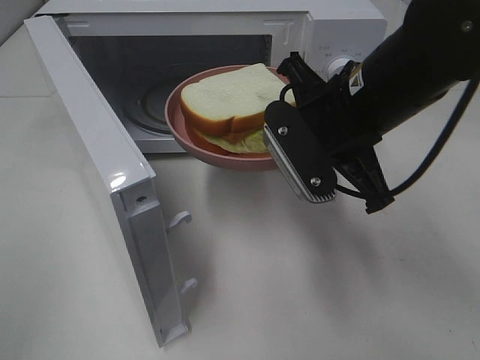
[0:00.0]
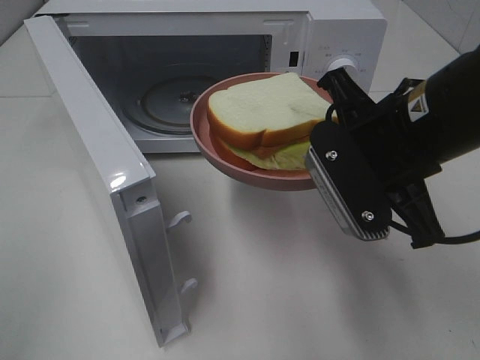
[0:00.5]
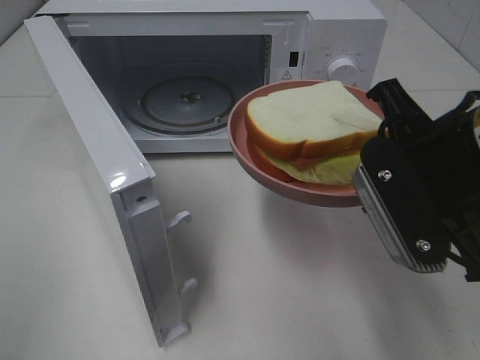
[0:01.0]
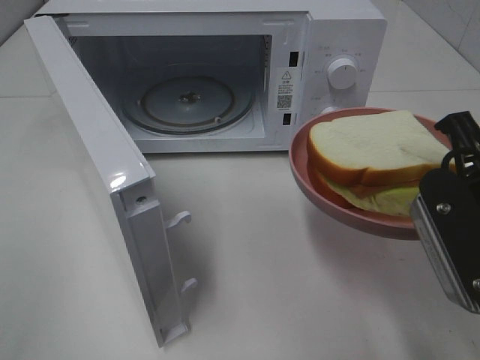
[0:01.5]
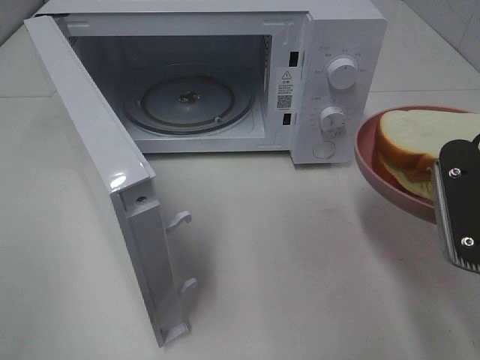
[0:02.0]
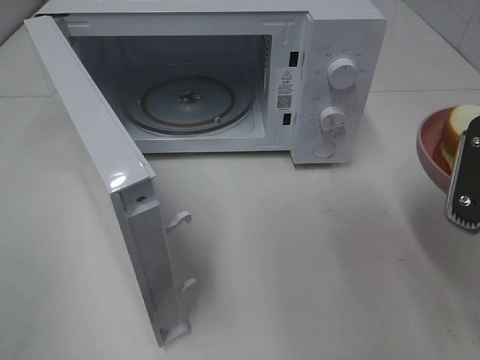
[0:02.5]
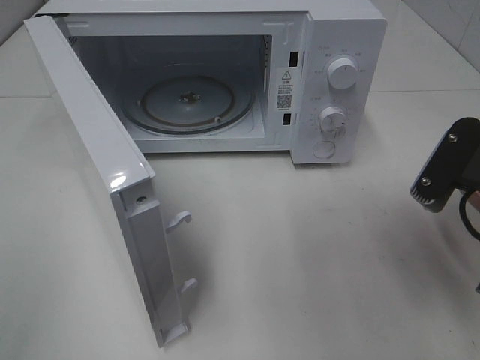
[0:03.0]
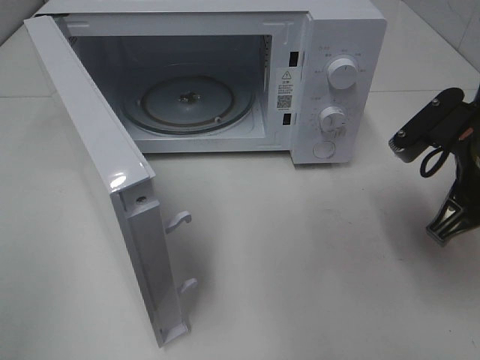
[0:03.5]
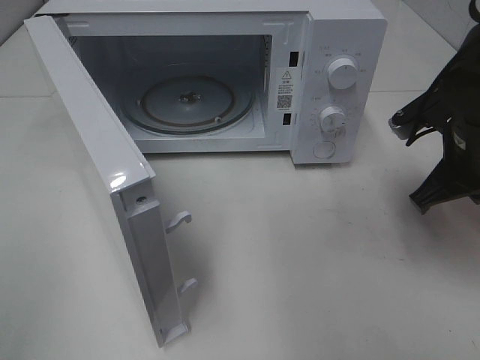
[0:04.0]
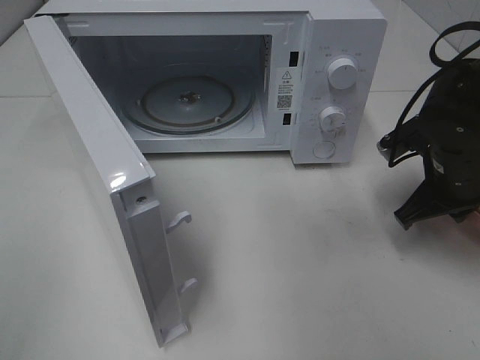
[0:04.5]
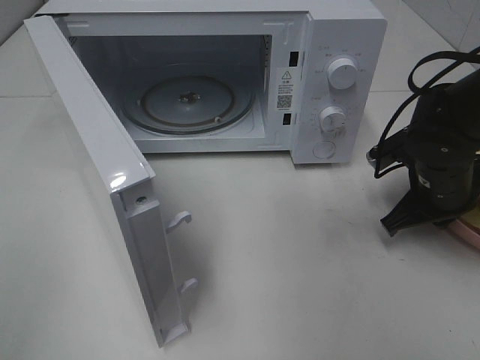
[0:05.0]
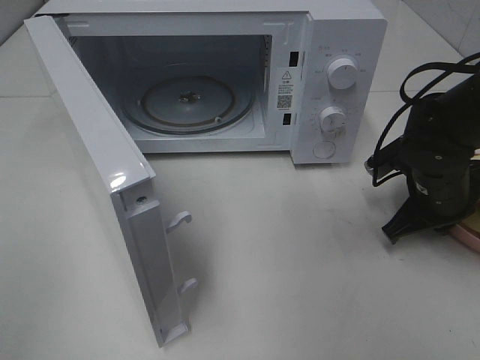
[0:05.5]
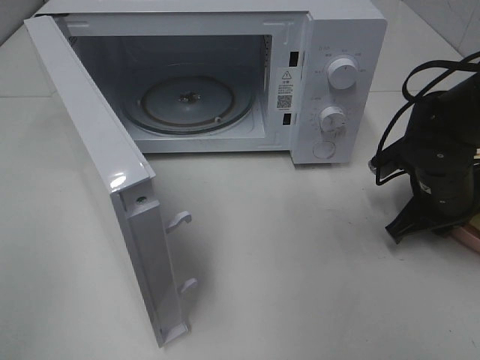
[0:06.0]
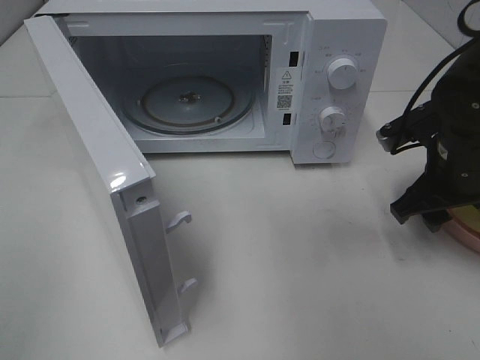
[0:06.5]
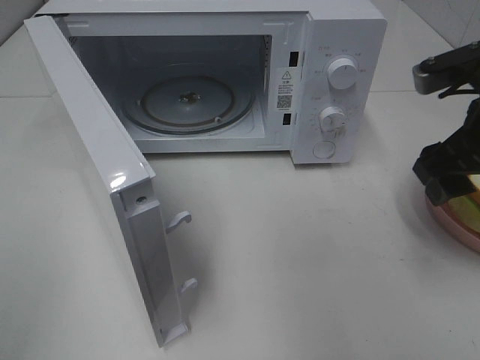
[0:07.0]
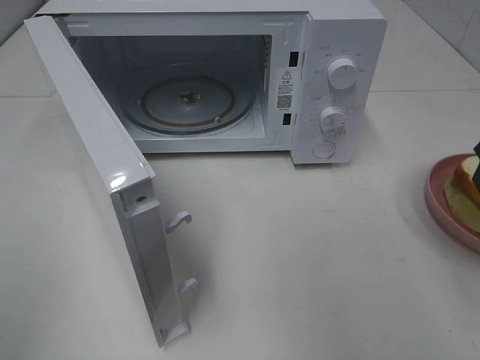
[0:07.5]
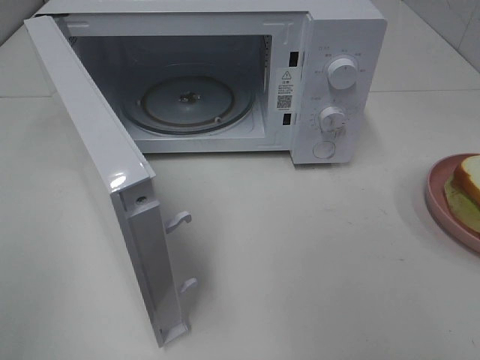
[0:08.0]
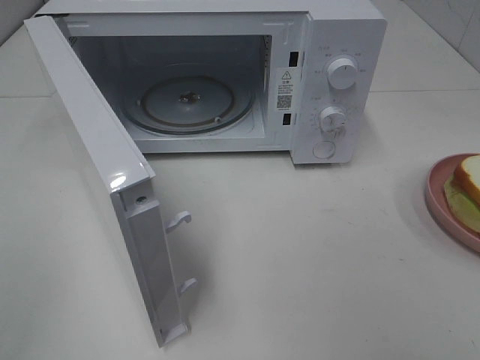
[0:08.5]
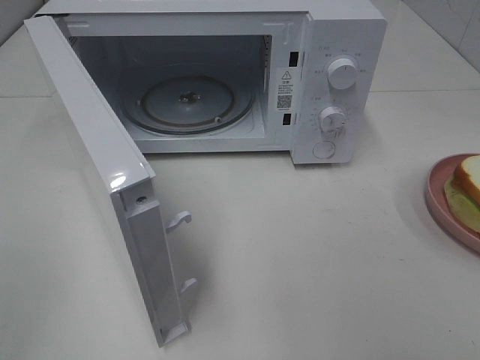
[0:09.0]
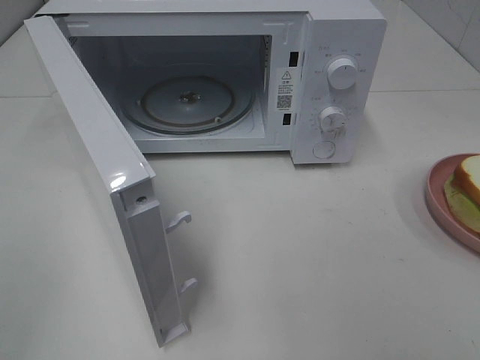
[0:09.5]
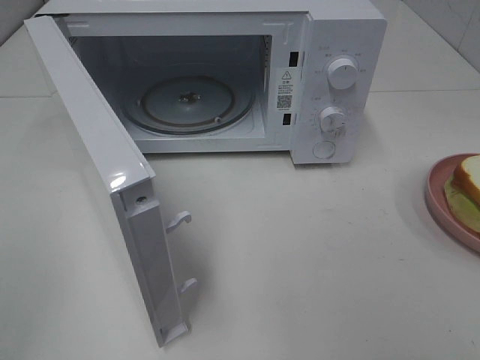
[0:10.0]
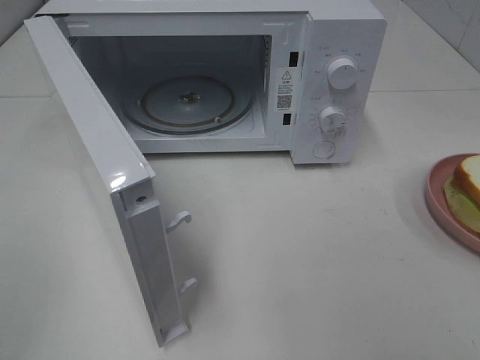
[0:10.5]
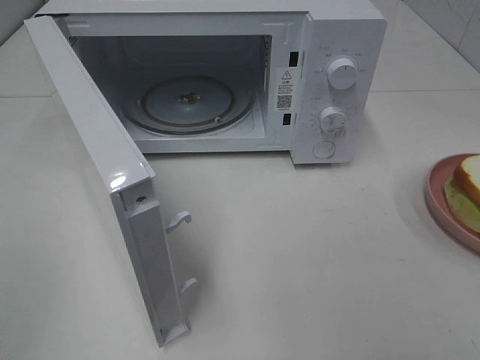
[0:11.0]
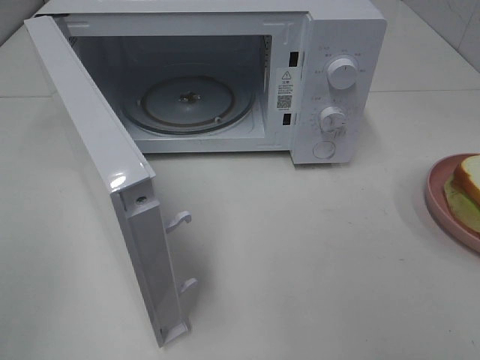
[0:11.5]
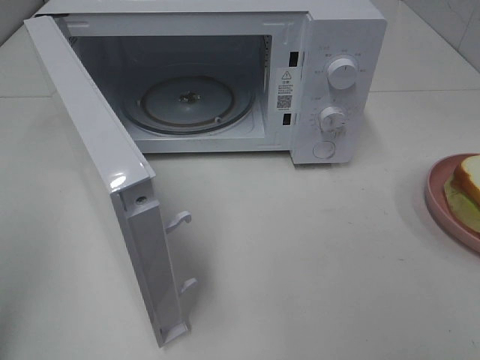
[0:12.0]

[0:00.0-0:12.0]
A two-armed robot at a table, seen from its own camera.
Task of the whole recording: Heat Sandwich.
Step, 0:00.0 to 0:06.5: Right hand: place the plate on the table.
0:00.0 to 0:02.0: The right gripper travels backward and to the right by approximately 15 cm.
0:02.0 to 0:04.0: The right gripper goes approximately 15 cm forward and downward.
0:04.0 to 0:06.0: The right gripper heads downward, covering some 10 cm.
0:06.0 to 0:08.0: The right gripper heads upward and backward, covering some 35 cm, and opens its fingers.

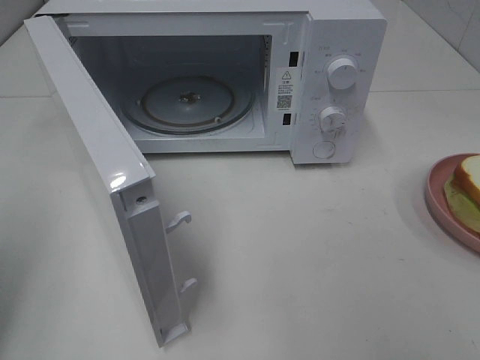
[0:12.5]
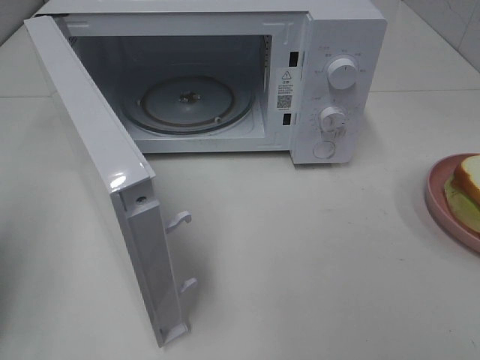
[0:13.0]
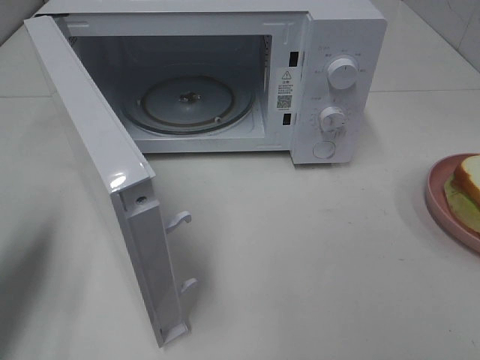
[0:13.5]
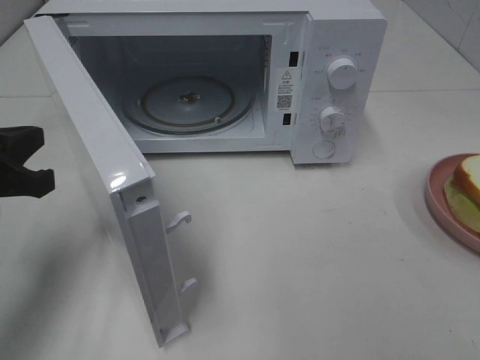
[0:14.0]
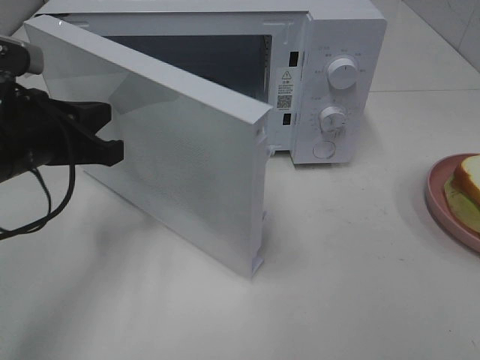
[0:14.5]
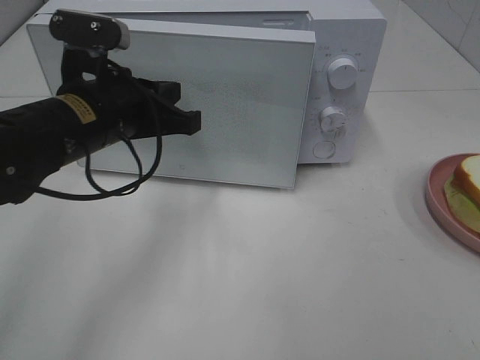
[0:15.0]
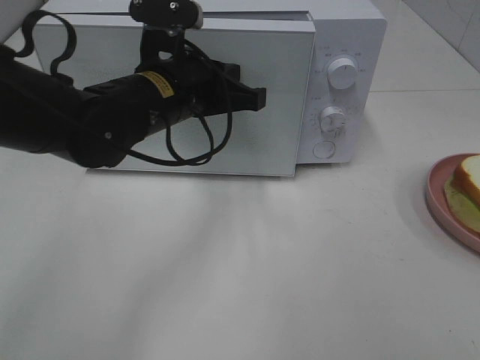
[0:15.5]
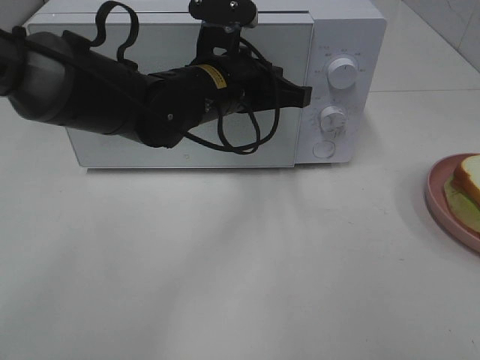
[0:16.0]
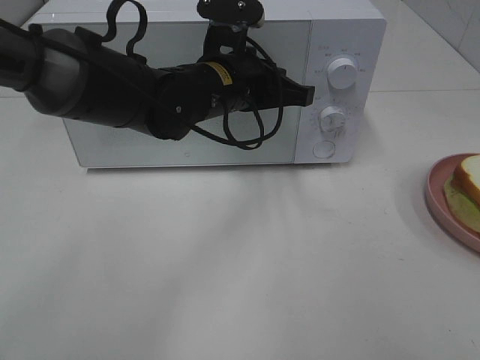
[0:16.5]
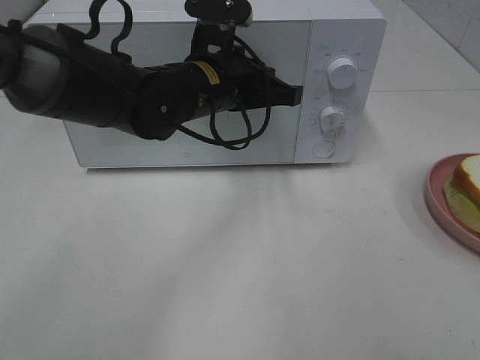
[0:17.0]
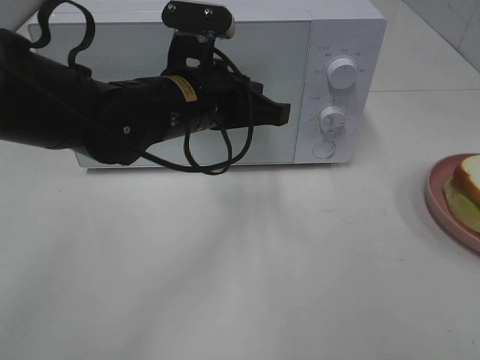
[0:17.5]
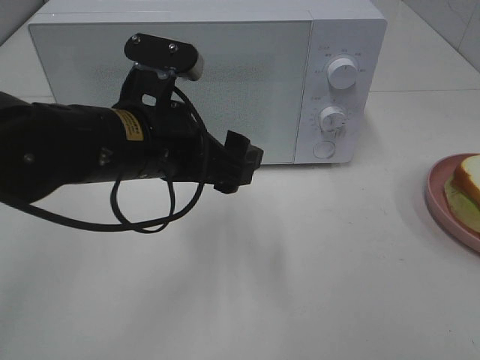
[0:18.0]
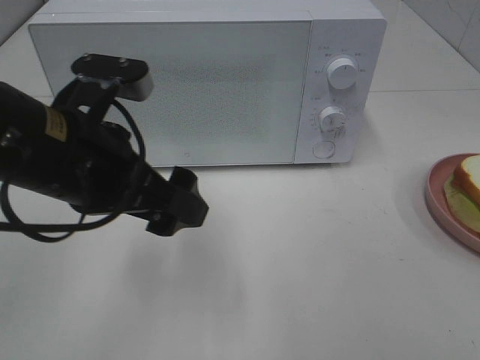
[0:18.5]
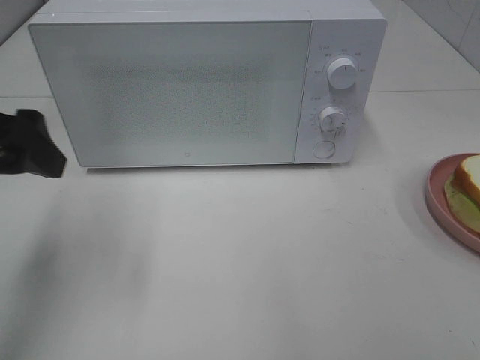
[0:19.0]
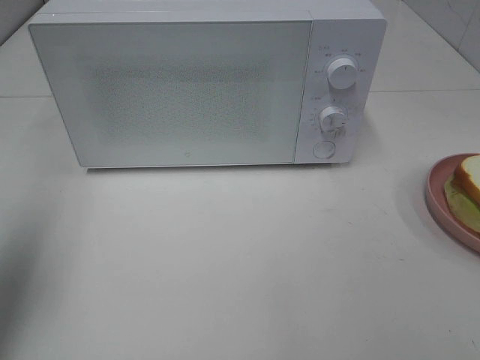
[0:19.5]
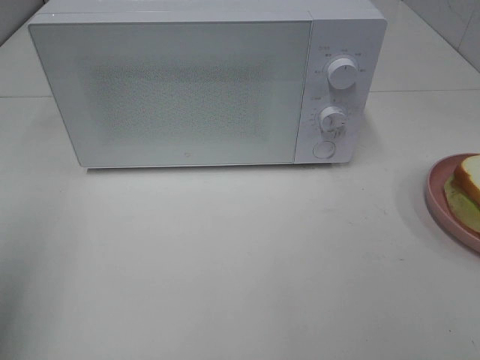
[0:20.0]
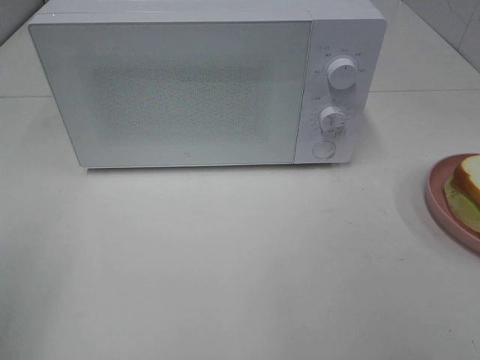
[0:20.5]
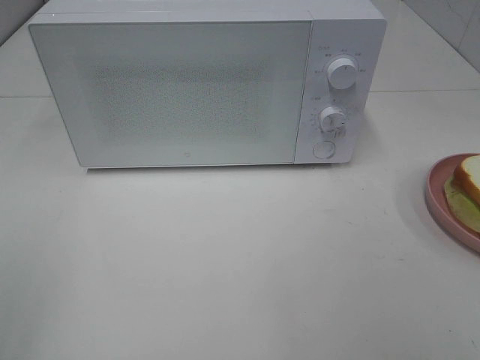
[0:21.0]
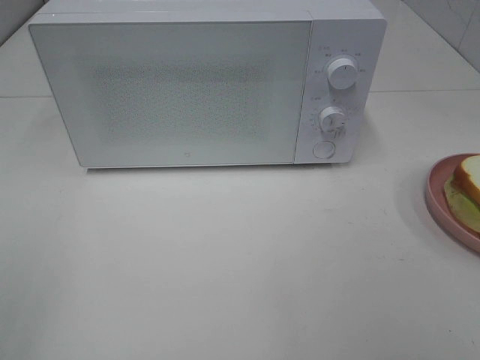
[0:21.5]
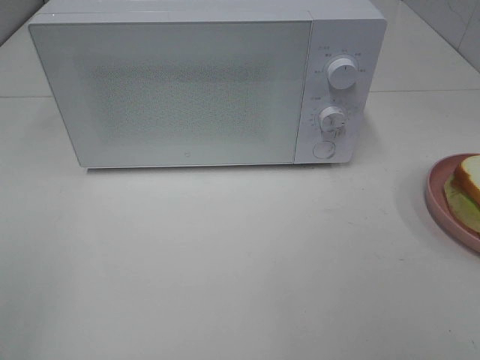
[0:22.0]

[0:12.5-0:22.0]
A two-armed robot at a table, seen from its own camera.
Task of the whole recording: Heat Sandwich.
Step, 0:12.5 to 0:17.0: Left hand: close the microwave door.
0:12.5 to 0:14.5: The left gripper shifts approximately 20 cm to the right, forward and downward.
0:14.5 to 0:16.5: The left gripper moves to the right and forward, approximately 20 cm.
0:16.5 to 0:18.0: The left gripper goes roughly 15 cm backward and to the left, and opens its fingers.
0:18.0 to 0:20.0: The left gripper heads to the left, backward and upward, covering about 30 cm.
0:20.0 to 0:22.0: The left gripper moves backward, some 10 cm.
